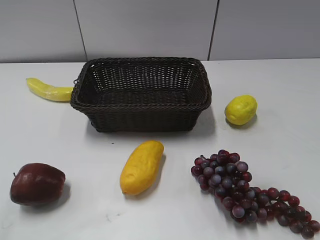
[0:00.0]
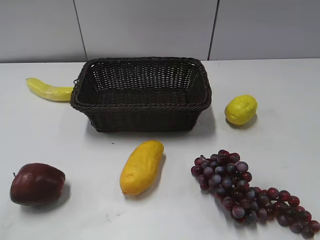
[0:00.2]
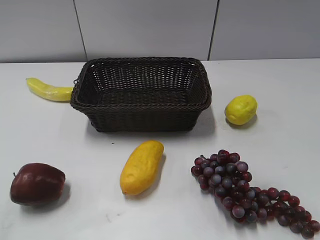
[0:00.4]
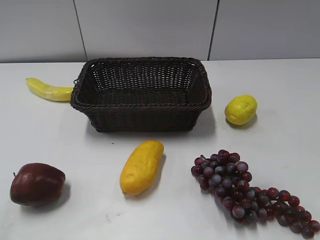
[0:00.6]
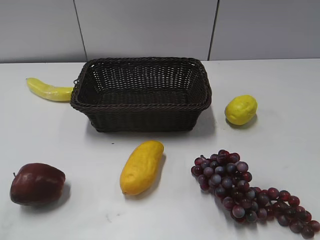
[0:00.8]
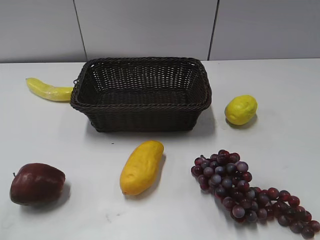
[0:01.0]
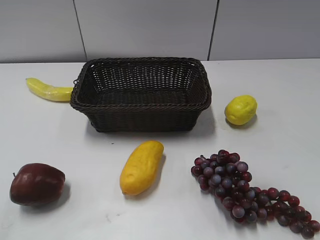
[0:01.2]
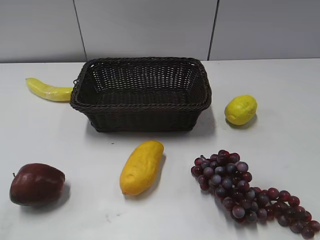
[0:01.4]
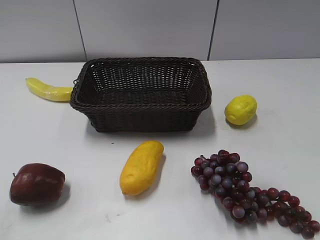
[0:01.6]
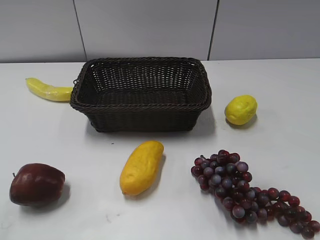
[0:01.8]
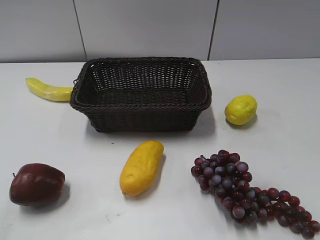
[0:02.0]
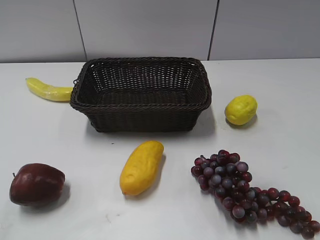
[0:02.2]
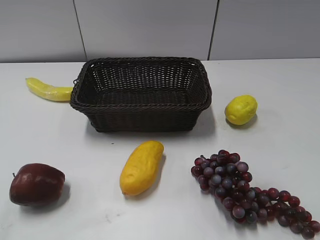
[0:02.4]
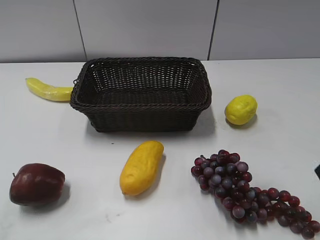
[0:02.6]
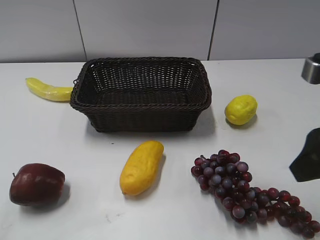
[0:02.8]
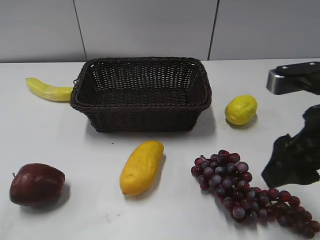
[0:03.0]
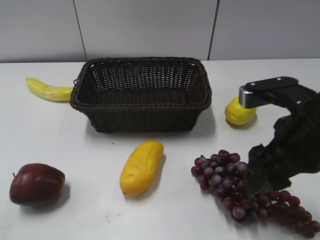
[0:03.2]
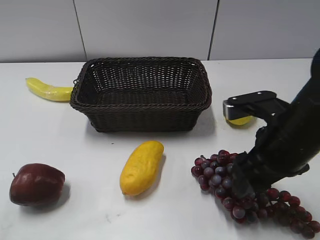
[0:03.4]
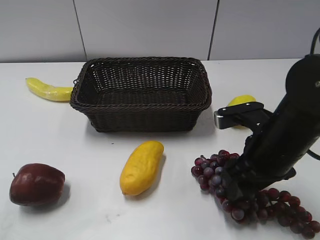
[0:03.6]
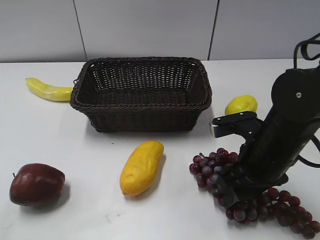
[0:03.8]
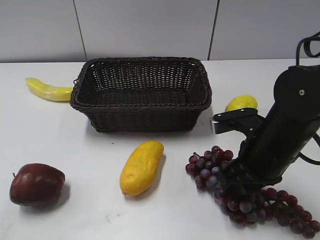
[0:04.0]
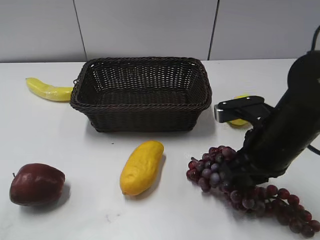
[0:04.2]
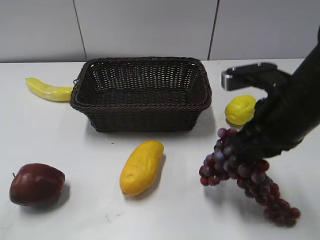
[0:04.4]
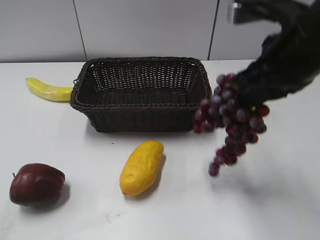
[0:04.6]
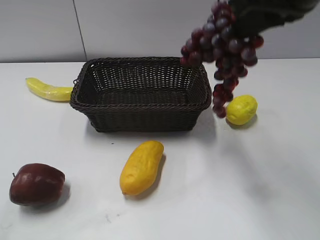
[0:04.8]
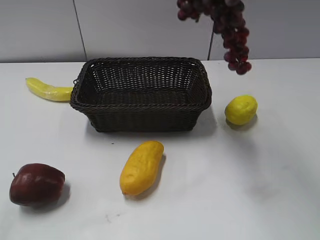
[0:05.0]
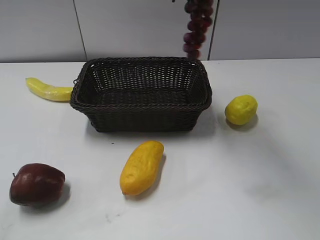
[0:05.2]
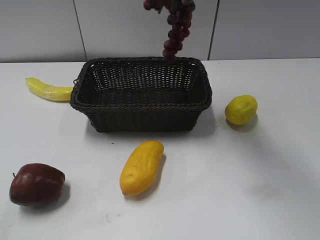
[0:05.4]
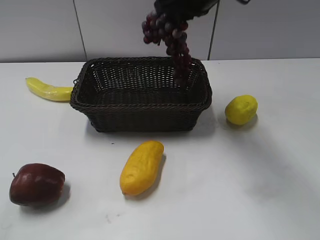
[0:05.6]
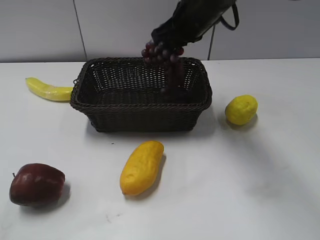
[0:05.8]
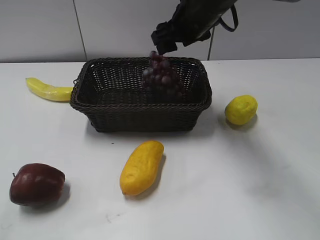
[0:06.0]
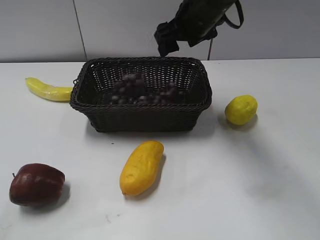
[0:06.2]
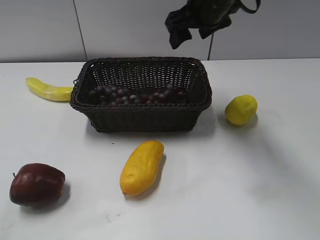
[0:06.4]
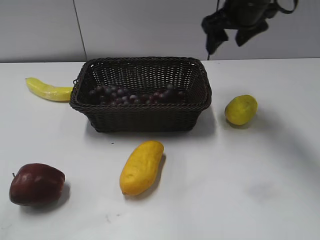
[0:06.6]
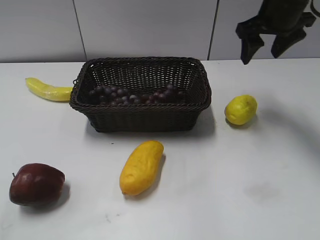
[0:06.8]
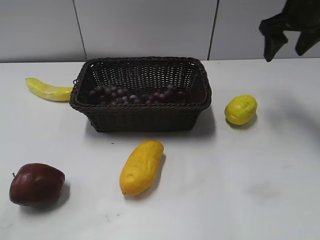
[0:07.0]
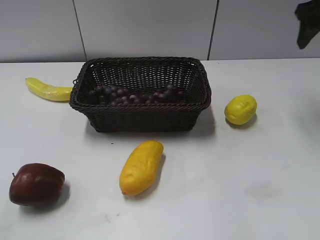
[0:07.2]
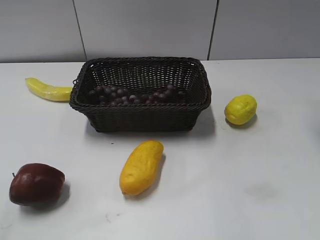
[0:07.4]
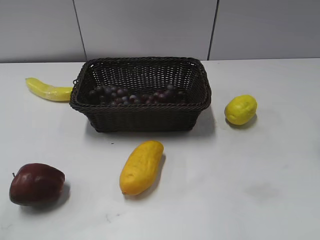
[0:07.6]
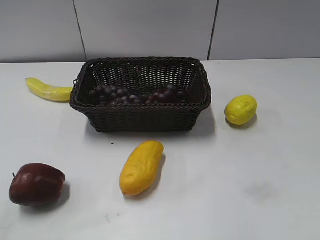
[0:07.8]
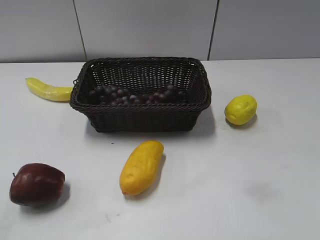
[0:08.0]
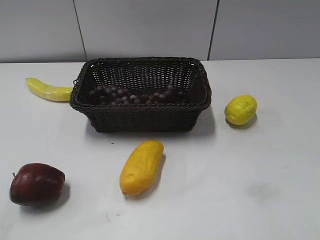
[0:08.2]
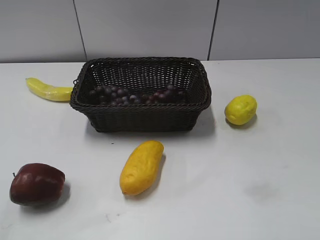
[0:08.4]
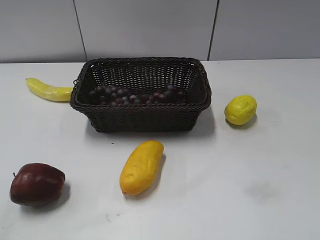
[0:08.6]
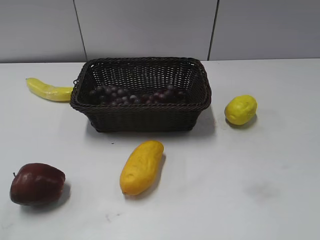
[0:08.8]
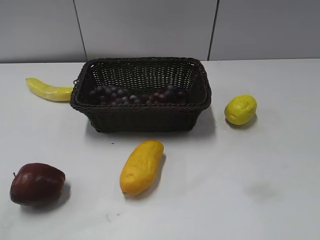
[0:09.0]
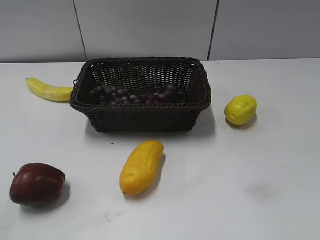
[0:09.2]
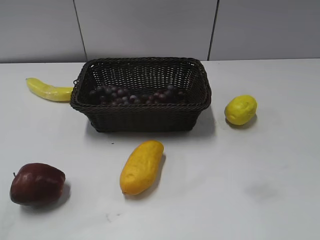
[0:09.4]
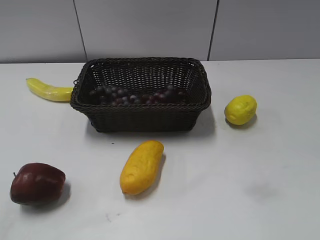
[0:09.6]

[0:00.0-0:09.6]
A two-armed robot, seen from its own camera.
Step, 0:02.6 to 0:04.2: Grasp the grape with right gripper.
Step, 0:04.4 to 0:06.4: Place the grape in the basket with right gripper.
0:01.6 to 0:03.2: The right gripper goes roughly 20 cm forward, to the left and downward.
0:03.2 to 0:04.8: The right gripper is displaced upward and forward by approximately 20 cm, and closes.
0:04.8 to 0:06.4: The right gripper goes some 15 cm forward and downward, and opens.
0:06.4 to 0:08.0: The right gripper travels backward and to the right by approximately 30 cm.

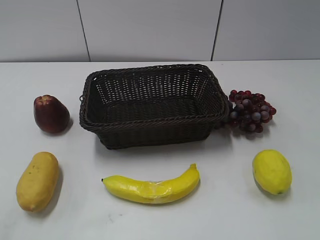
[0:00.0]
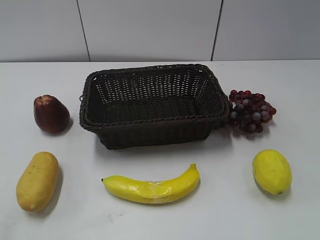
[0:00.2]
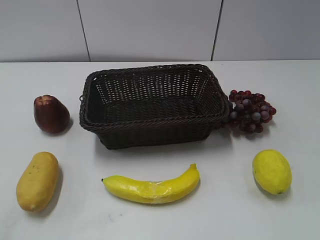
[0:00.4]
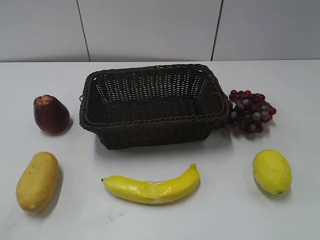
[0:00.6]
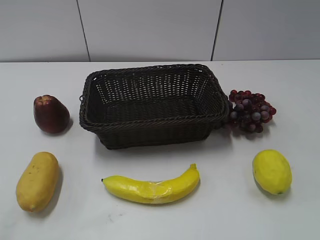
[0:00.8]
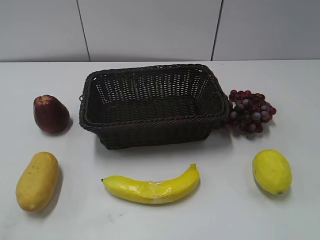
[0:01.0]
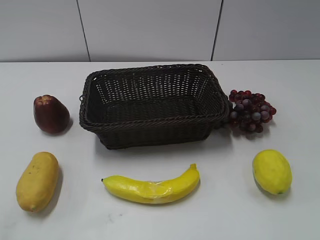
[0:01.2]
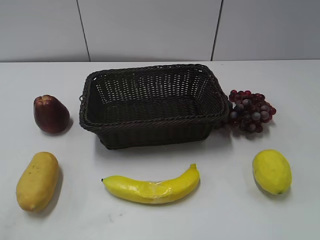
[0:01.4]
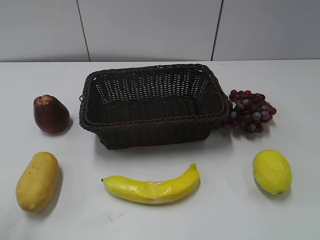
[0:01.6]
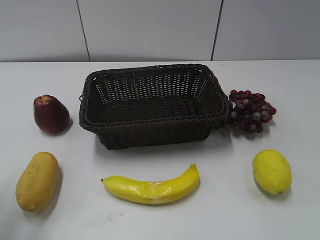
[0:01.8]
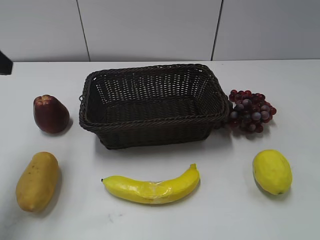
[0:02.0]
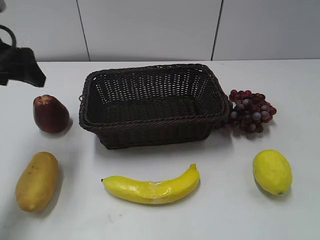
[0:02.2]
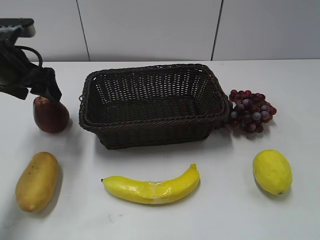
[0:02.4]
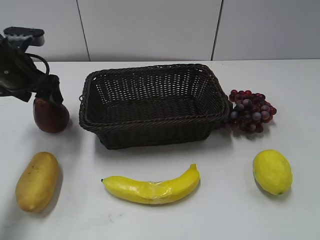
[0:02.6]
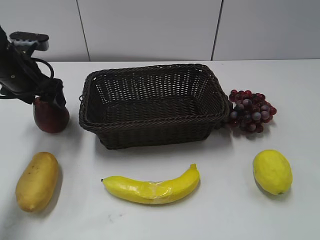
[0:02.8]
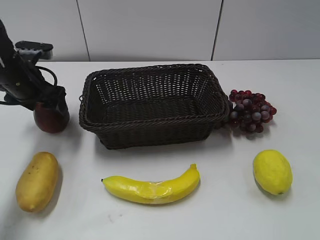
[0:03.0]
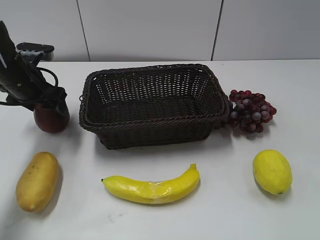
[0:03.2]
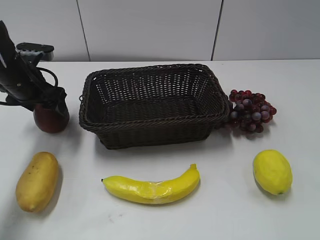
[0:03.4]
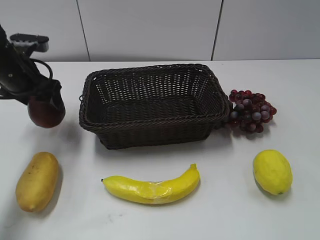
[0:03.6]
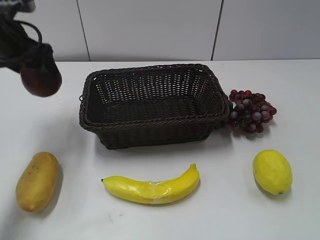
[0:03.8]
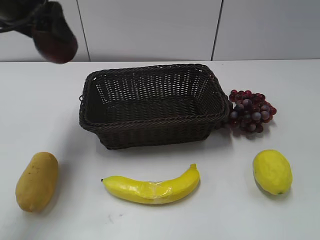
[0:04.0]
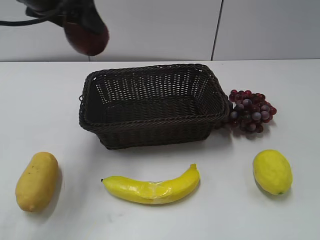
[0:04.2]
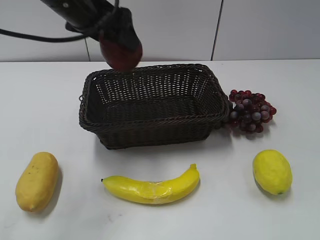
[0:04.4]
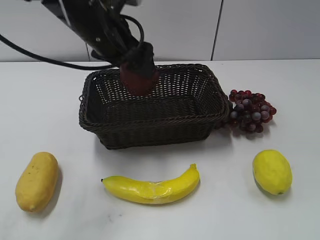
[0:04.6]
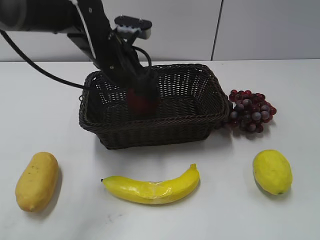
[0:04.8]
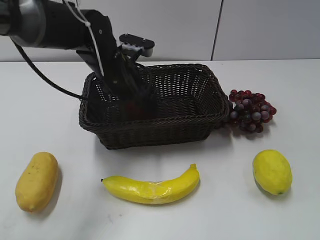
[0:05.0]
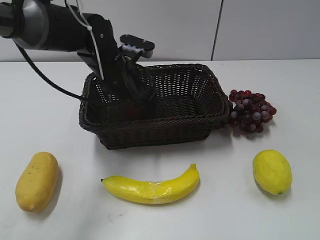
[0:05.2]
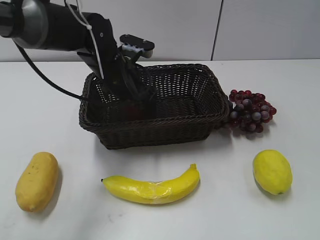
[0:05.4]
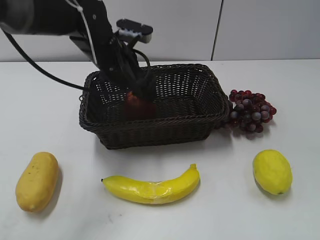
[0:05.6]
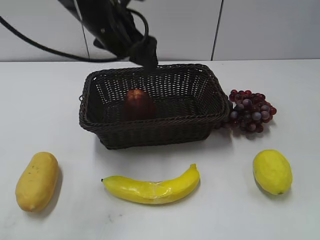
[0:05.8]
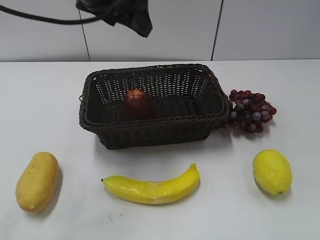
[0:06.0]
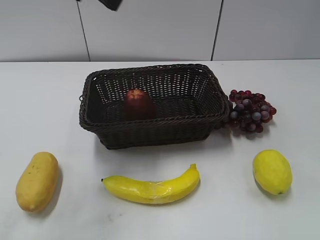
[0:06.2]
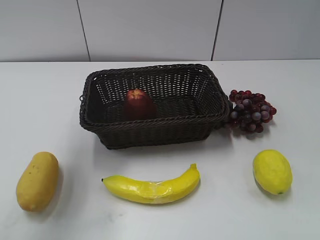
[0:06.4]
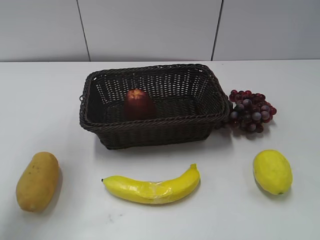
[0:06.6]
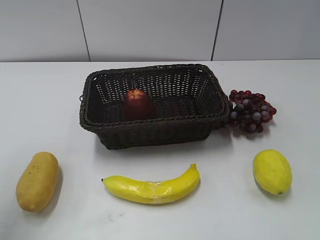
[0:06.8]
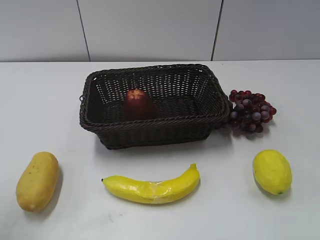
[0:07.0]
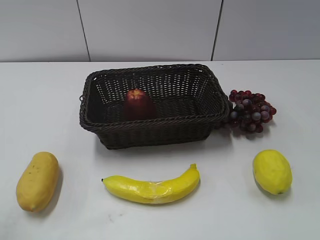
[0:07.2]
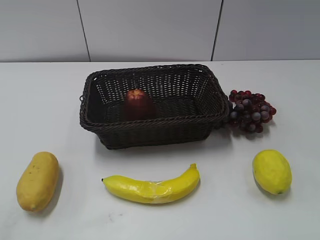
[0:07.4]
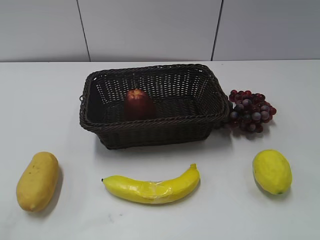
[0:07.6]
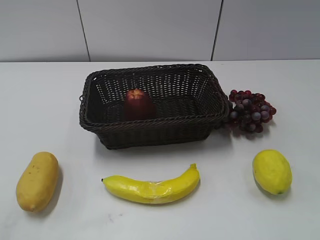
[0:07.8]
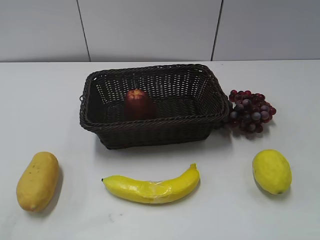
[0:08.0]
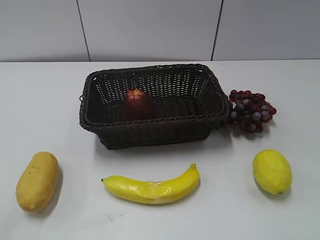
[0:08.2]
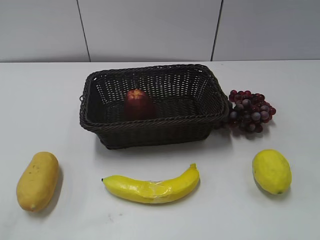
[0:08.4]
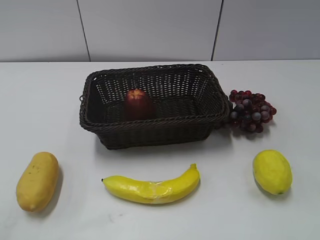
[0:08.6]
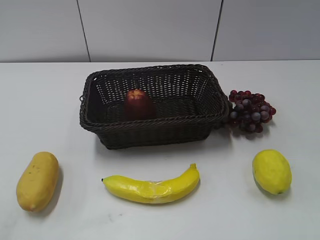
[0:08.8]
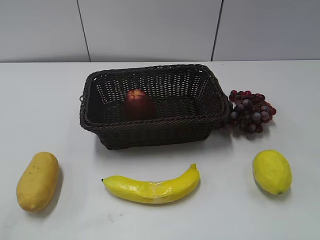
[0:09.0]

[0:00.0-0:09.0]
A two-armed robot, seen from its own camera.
Step, 0:02.0 to 0:03.0: Grasp the apple with left gripper.
Step, 0:03.4 to 0:05.2: Place the apple in the basket with left gripper.
0:01.6 to 0:03.0: The left gripper travels forward and downward by roughly 35 cm.
0:03.0 to 0:04.4: The left gripper is displaced to the right and upward by some 20 cm.
0:04.4 to 0:06.0: The left gripper goes downward and returns, approximately 15 cm each way.
0:06.0 to 0:07.6: The left gripper shifts roughly 40 cm backward and to the left.

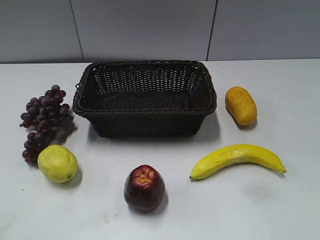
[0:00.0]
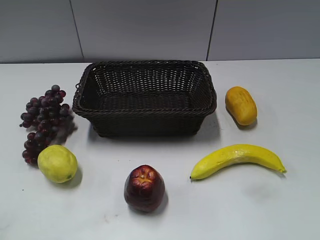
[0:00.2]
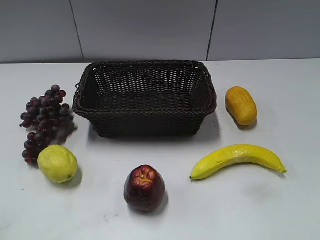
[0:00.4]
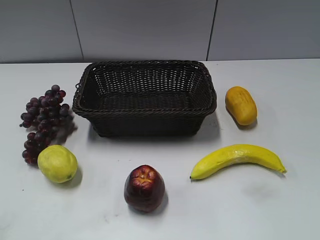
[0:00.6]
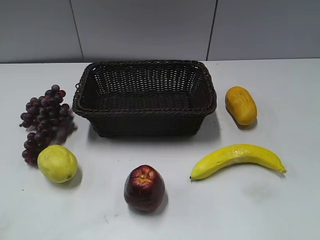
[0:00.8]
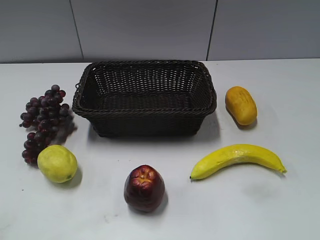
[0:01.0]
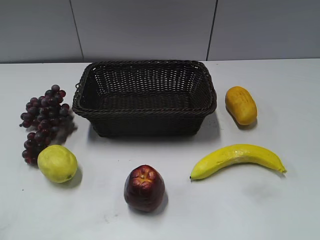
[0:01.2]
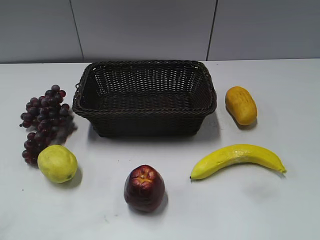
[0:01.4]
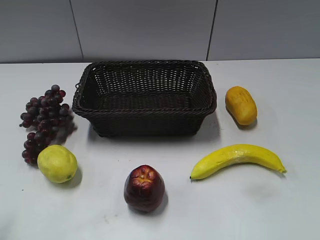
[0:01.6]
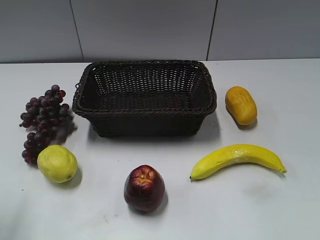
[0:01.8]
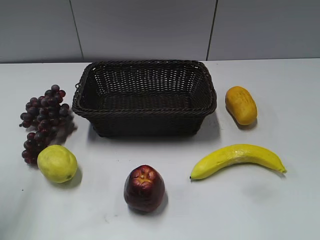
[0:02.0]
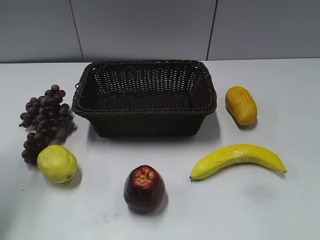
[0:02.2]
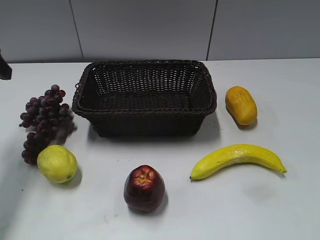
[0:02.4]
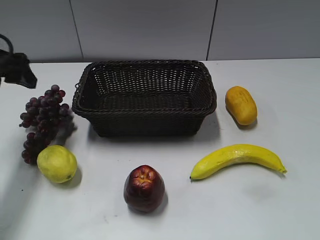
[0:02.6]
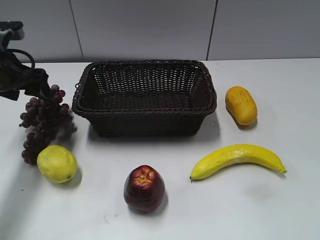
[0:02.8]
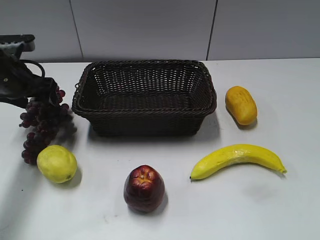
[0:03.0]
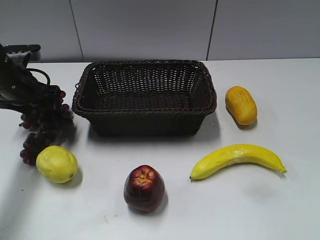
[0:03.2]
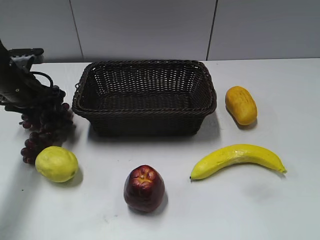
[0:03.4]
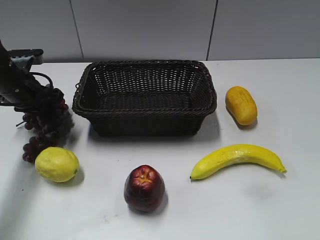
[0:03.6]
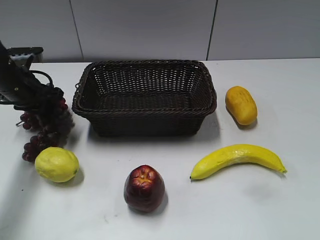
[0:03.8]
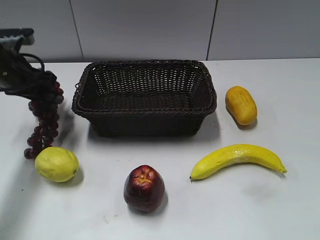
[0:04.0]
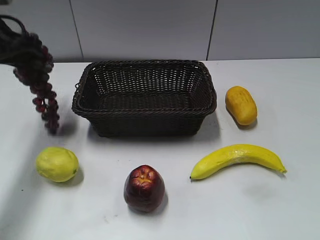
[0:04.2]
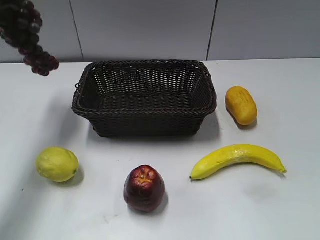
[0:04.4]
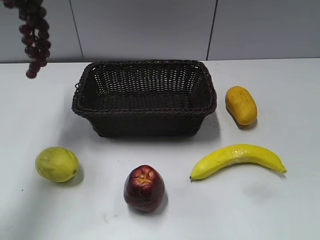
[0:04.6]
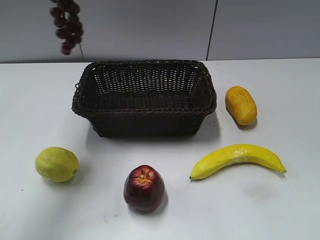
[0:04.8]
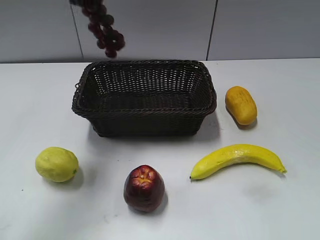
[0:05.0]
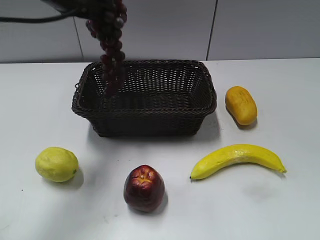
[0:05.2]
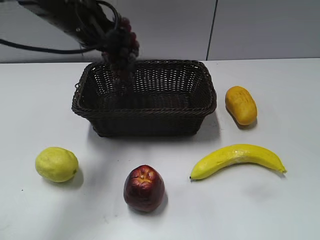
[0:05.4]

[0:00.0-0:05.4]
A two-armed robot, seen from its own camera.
Step, 0:02.4 to 0:03.6: Grasp the grape with left gripper.
0:01.4 to 0:02.8: The left gripper goes about 30 cm forward.
0:02.8 to 0:04.0: The left gripper closes its fingers.
0:04.0 to 0:05.4: The left gripper goes roughly 15 cm to the right, and reaches some 20 cm upward, then returns.
